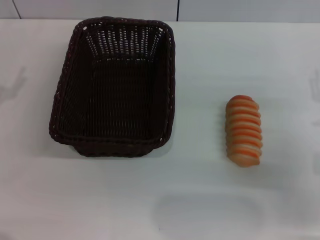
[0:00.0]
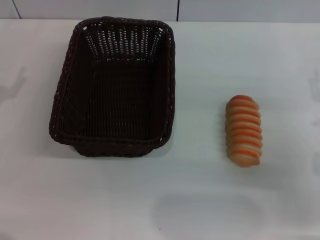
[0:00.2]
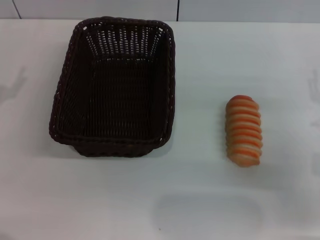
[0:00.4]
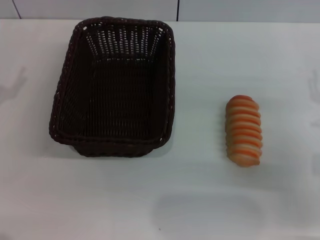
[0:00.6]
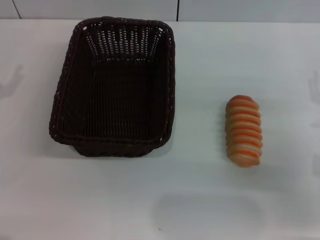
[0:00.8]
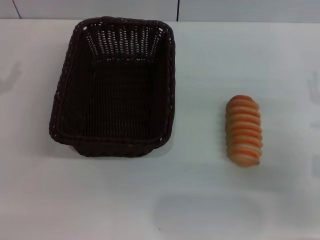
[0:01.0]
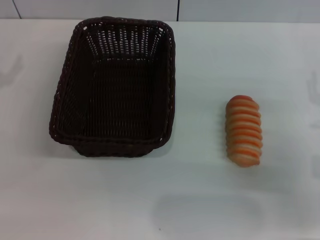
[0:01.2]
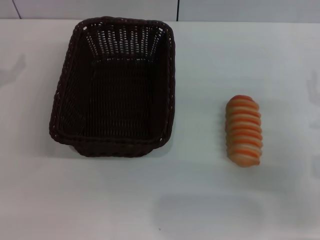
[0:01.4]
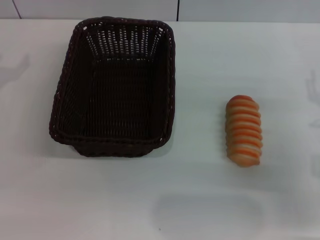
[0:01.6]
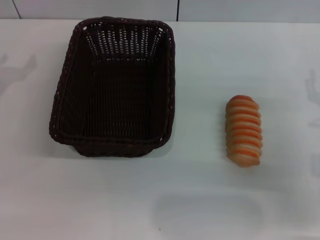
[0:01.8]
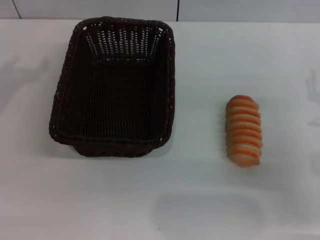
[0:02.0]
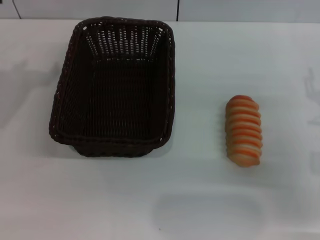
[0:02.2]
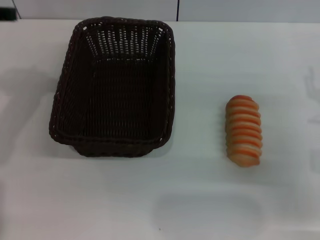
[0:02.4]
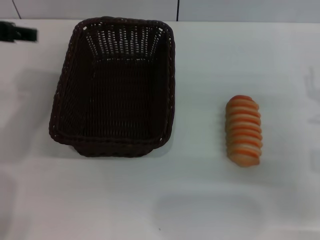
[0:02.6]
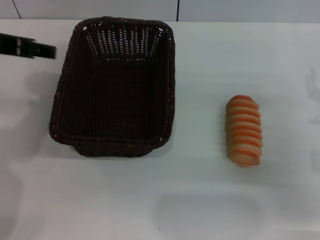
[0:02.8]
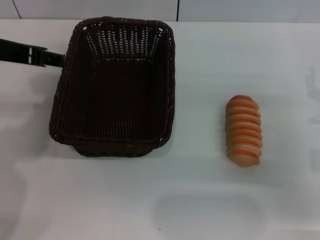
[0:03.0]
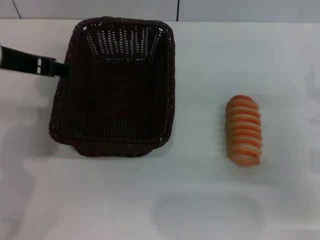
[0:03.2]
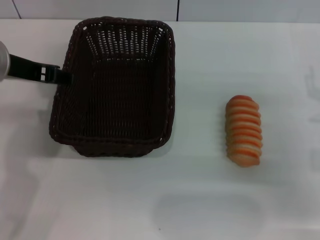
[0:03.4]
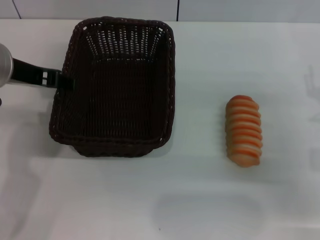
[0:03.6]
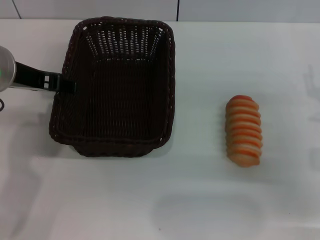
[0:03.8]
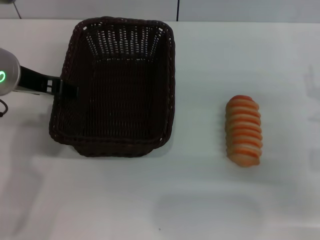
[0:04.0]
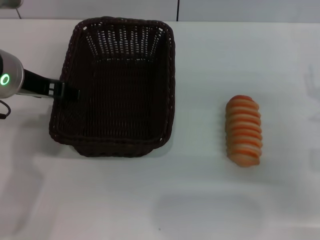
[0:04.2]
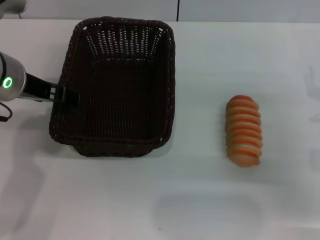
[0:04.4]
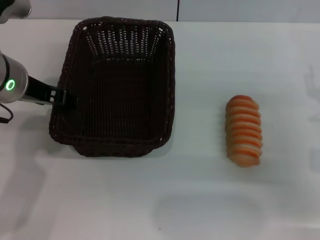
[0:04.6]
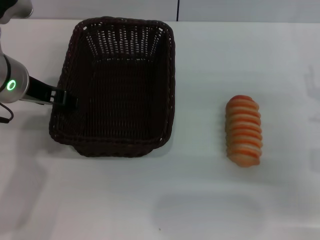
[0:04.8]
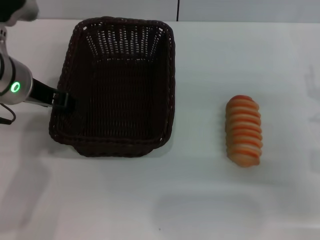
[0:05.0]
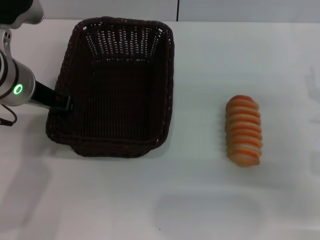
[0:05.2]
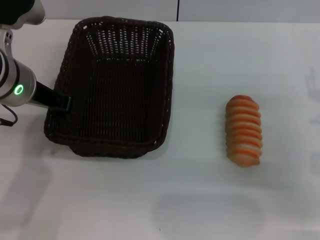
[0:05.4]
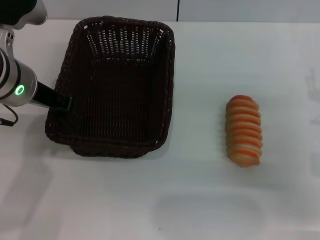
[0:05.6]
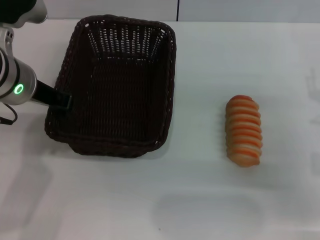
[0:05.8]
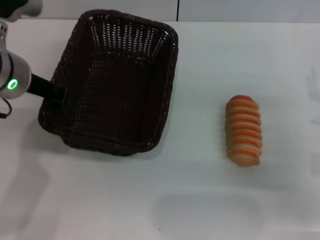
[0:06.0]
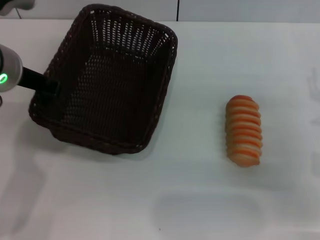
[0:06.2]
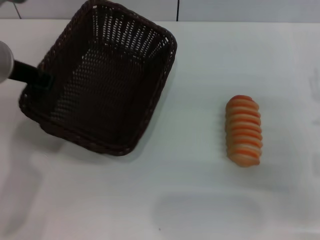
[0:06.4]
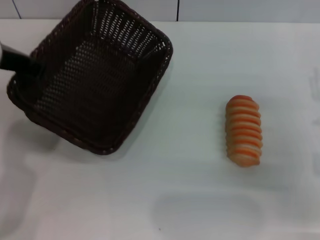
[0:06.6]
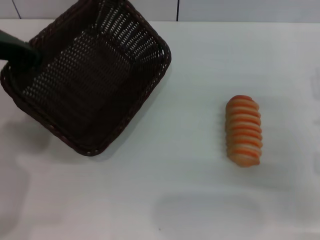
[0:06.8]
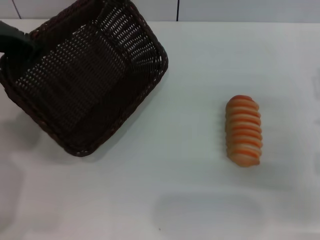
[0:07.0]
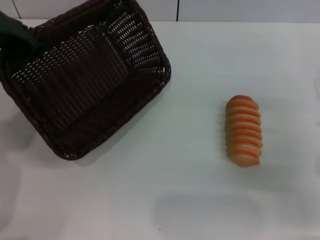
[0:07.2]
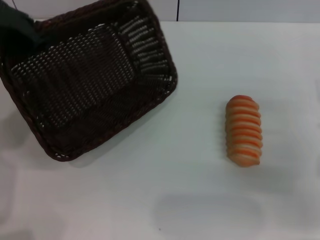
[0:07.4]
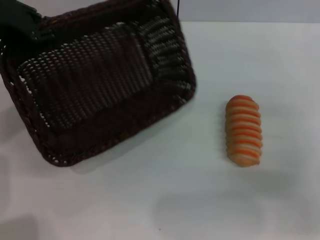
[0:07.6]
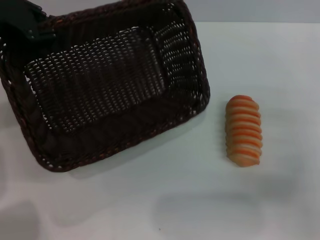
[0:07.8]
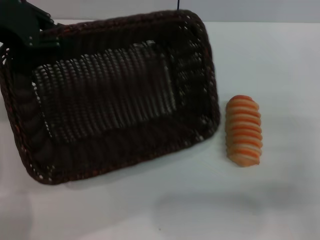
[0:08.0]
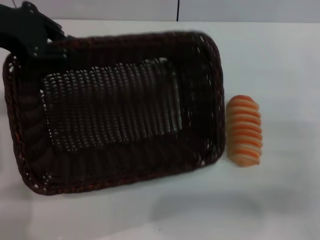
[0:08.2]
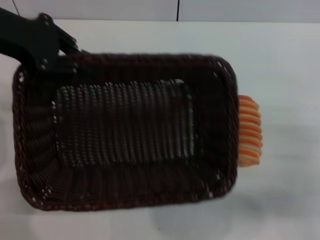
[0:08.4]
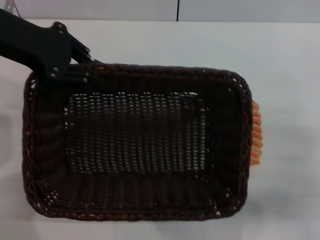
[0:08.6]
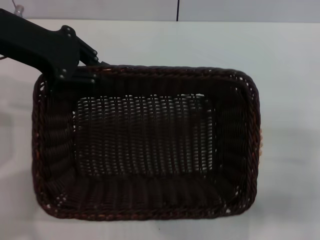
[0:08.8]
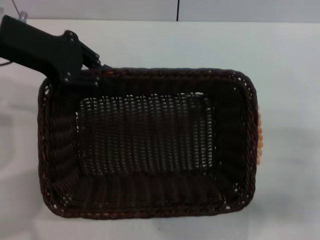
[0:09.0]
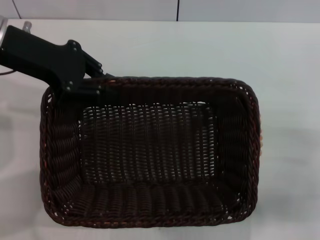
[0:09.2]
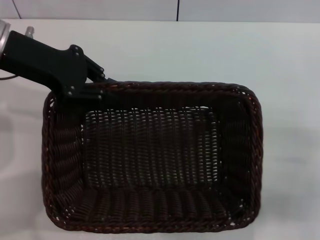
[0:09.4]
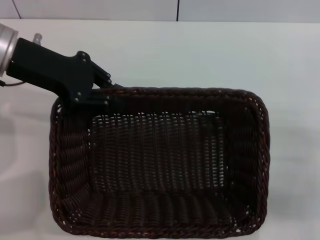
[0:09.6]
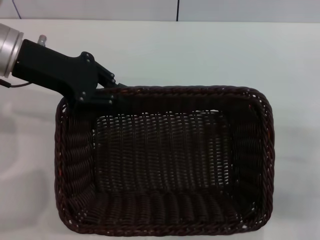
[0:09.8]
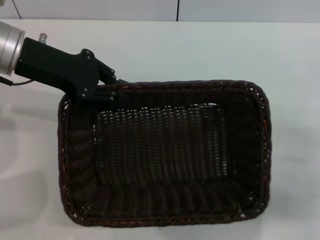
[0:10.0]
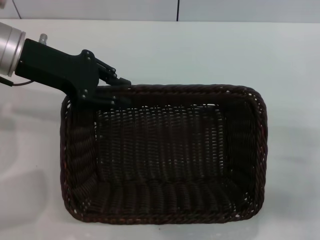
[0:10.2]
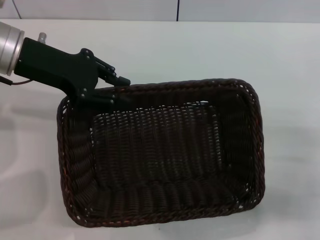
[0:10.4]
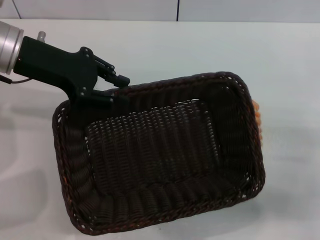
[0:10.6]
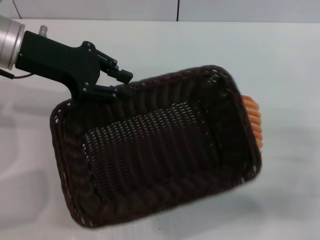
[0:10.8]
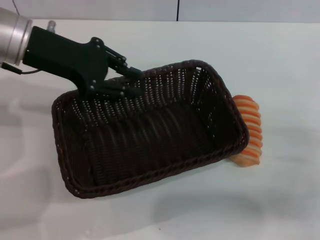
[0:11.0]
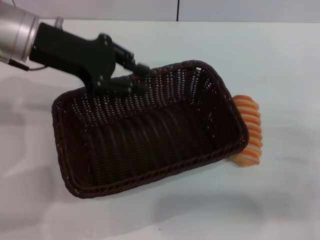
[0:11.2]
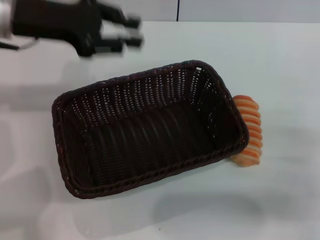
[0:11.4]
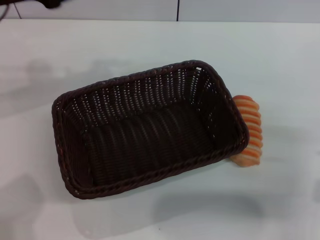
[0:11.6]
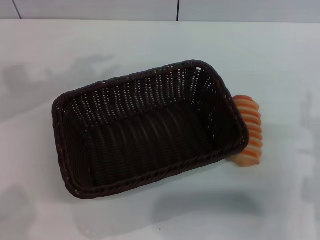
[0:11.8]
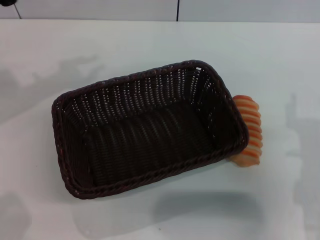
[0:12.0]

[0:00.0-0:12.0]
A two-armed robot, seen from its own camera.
Step, 0:00.0 to 0:06.8: Pick up the dark basket with the left gripper.
Step, 0:07.0 to 0:11.0: Place the dark basket in the center of view with the left gripper.
0:01.6 to 0:03.0: The left gripper travels to the right and upward by roughly 15 cm.
0:03.0 to 0:04.4: The left gripper heads downward, covering some 5 cm.
0:04.4 to 0:06.0: The left gripper closes up.
0:06.0 to 0:07.6: The left gripper goes some 10 cm upward and to the left.
0:07.6 to 0:09.0: The right gripper changes place by some 5 cm. The left gripper changes place by approximately 5 cm.
0:09.0 to 0:10.4: There are only small adjustments of the grippers.
0:10.4 to 0:12.0: Both grippers move to the left, about 10 cm.

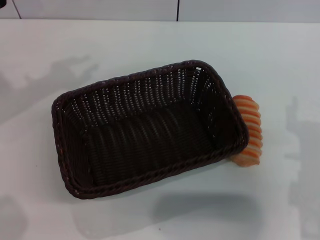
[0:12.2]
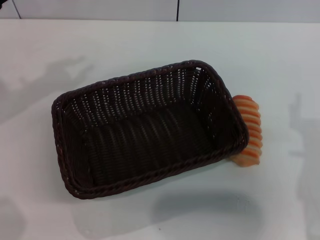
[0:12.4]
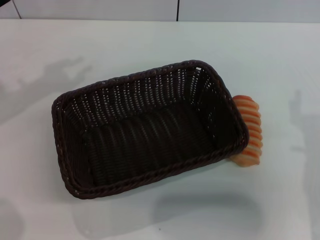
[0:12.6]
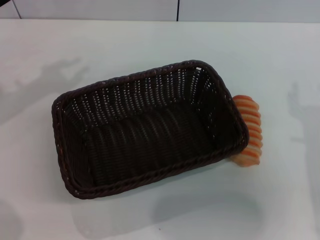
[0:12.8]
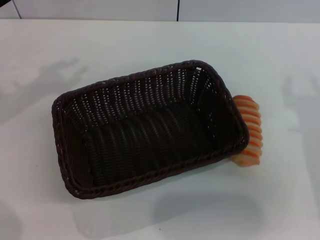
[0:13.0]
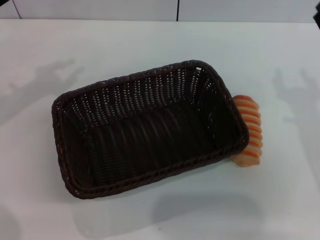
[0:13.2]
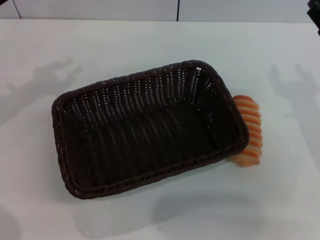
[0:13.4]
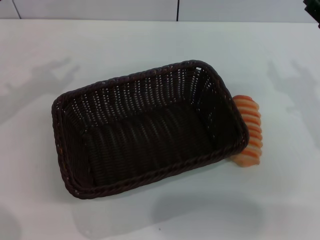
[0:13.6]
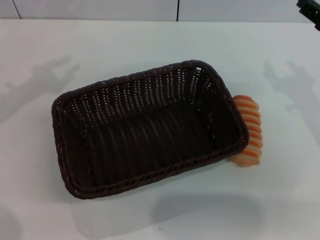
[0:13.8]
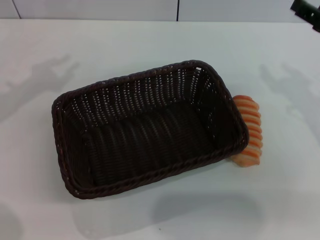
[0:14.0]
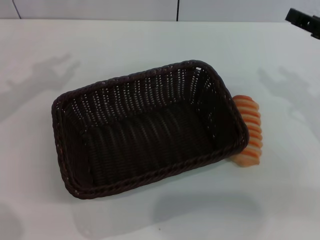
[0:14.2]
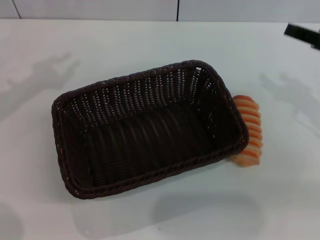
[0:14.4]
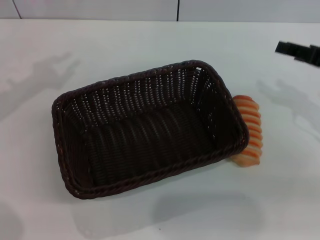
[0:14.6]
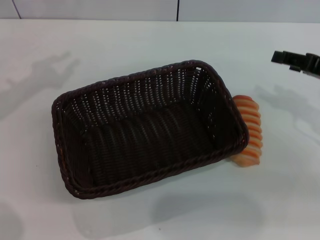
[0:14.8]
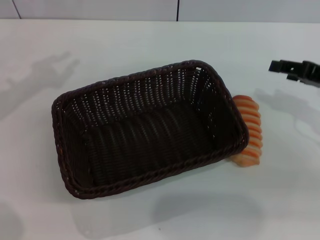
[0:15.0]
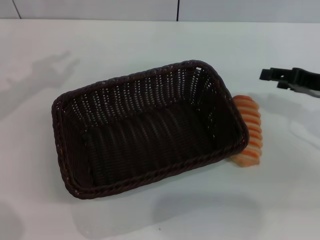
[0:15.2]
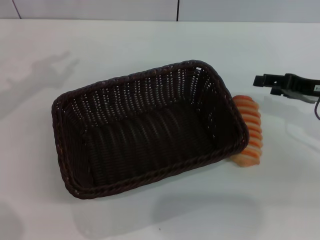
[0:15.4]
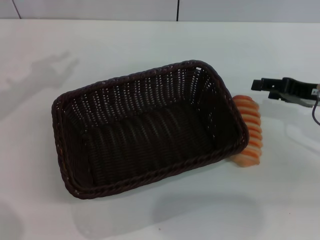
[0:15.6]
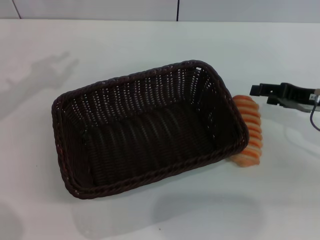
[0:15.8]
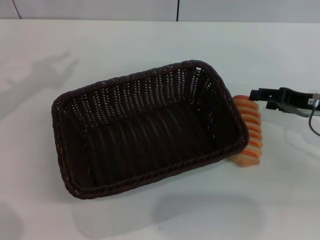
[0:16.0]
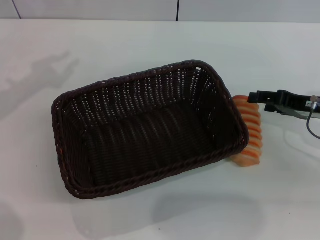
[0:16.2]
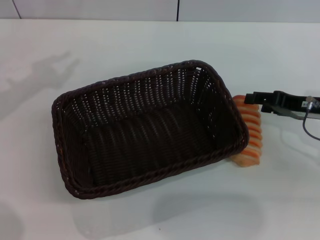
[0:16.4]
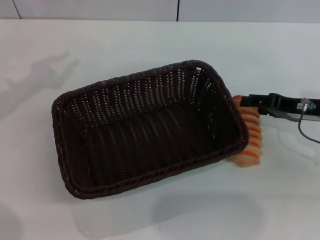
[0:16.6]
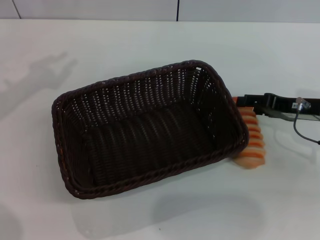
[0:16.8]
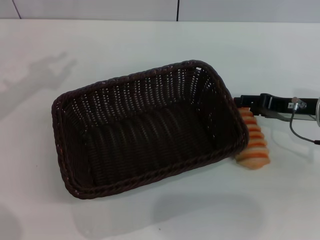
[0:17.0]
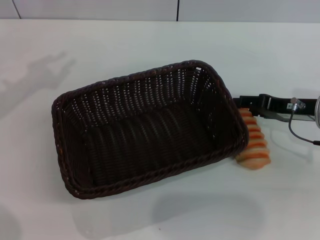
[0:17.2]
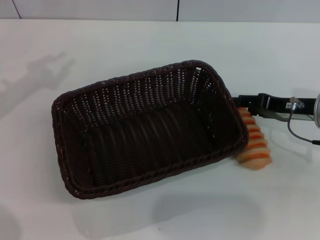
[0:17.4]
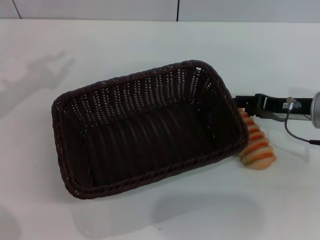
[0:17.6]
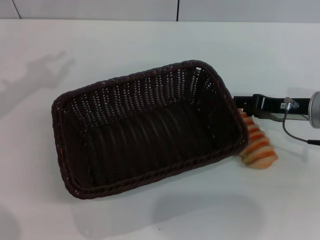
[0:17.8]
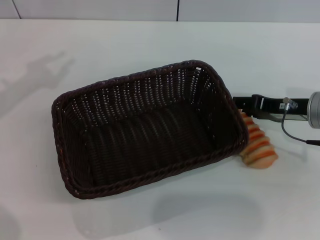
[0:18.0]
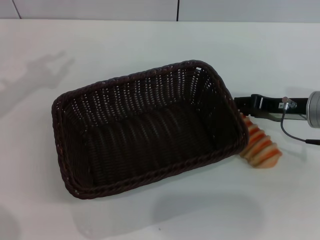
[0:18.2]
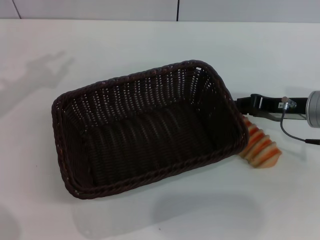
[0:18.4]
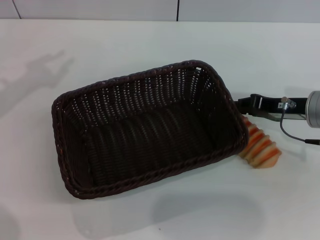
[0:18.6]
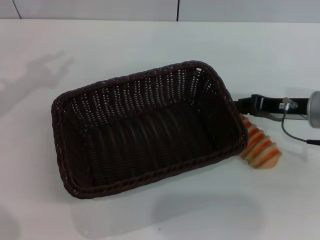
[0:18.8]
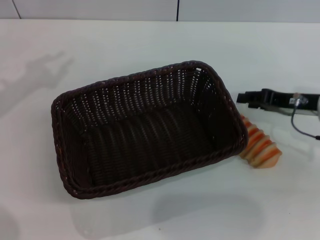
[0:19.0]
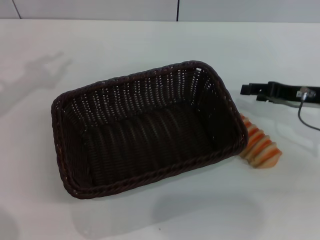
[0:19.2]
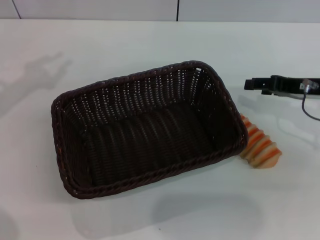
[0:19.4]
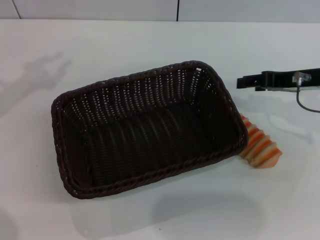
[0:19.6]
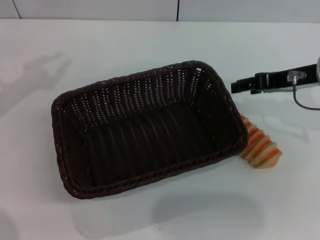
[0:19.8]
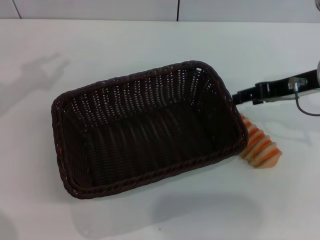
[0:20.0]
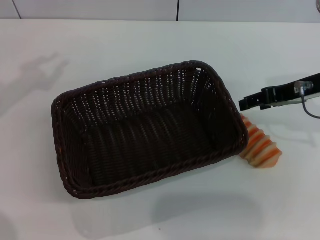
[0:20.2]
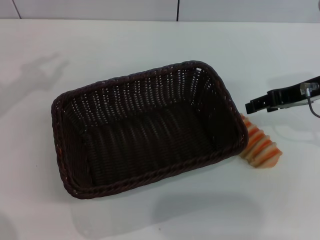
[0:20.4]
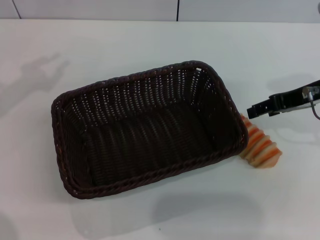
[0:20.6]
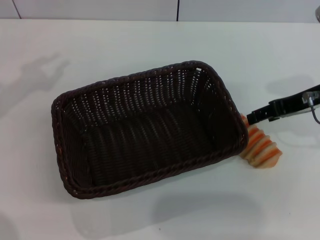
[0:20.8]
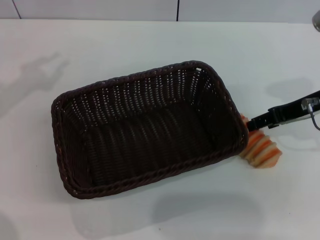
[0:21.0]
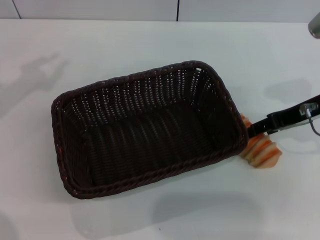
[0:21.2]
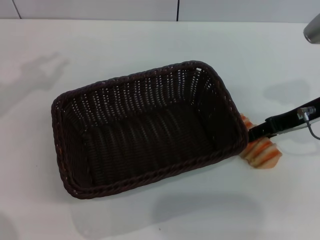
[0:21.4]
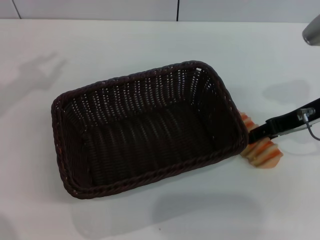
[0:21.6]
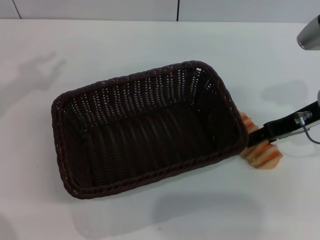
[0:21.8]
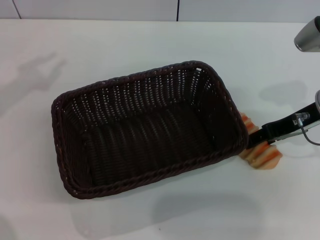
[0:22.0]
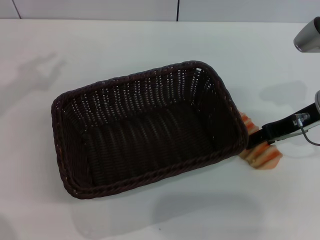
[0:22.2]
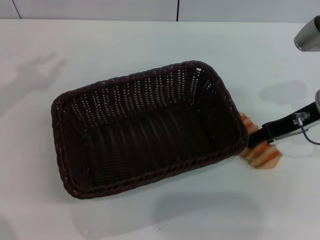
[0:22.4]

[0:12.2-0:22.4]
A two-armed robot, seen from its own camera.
0:12.2 to 0:13.6: The right gripper heads forward and upward, covering about 15 cm.
0:13.6 to 0:15.2: The right gripper moves approximately 5 cm.
0:15.2 to 0:18.0: The grippers make only small movements.
0:18.0 to 0:19.4: The right gripper closes, then reopens.
0:21.0 to 0:22.4: The grippers stay close to where they were, moving slightly.
